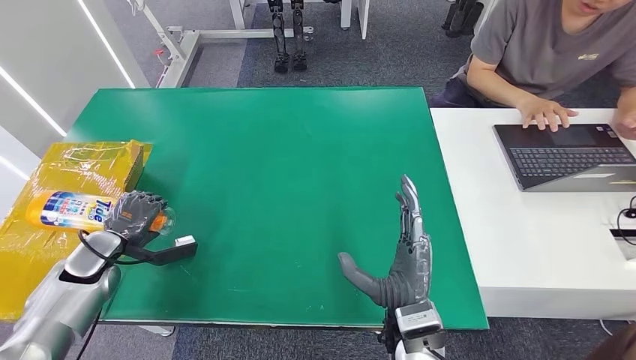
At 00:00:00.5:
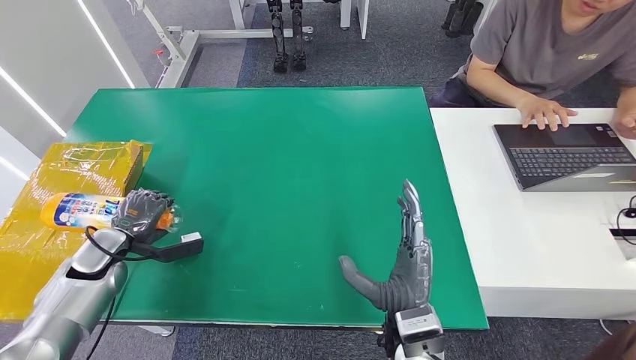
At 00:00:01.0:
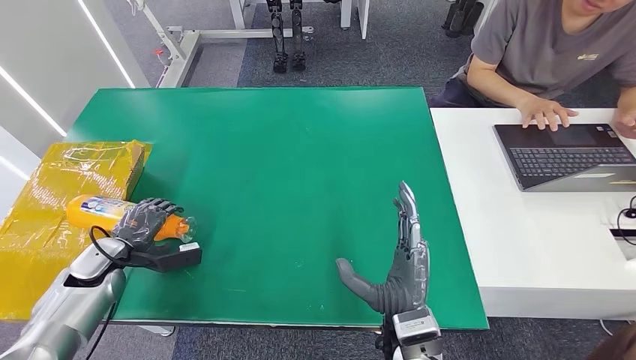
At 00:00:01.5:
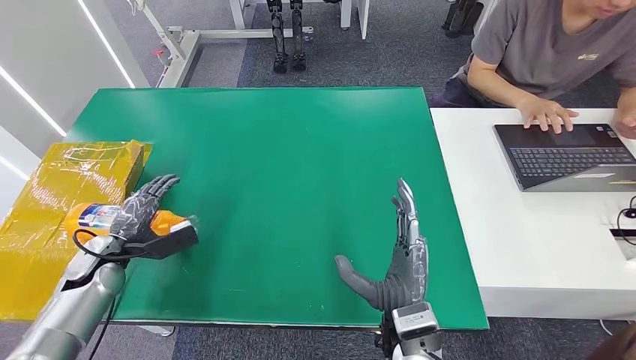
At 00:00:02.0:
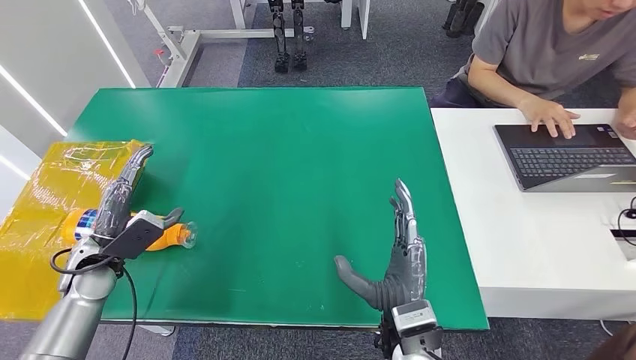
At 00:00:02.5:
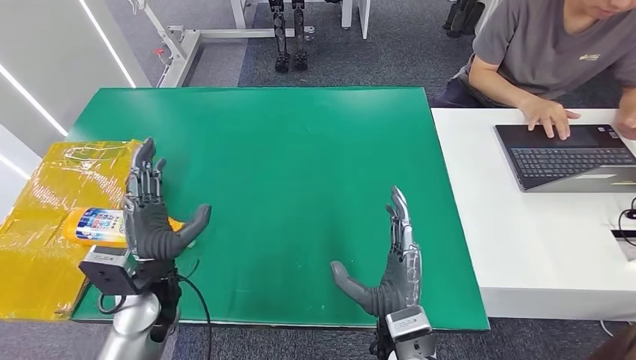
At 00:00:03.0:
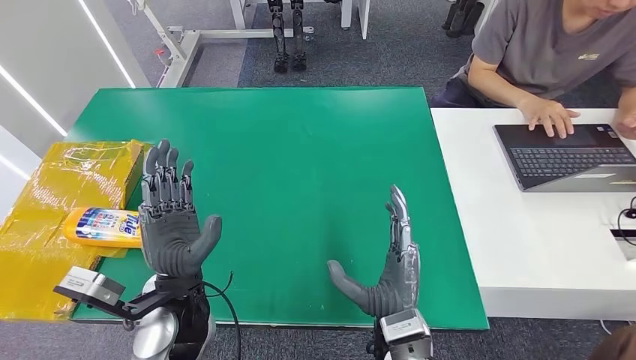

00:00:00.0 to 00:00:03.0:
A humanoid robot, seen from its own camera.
Step, 00:00:00.0 to 00:00:03.0: Turn the bottle to the front side.
00:00:01.5 to 00:00:03.0: The left hand is displaced to the right, backward and upward by approximately 25 cm.

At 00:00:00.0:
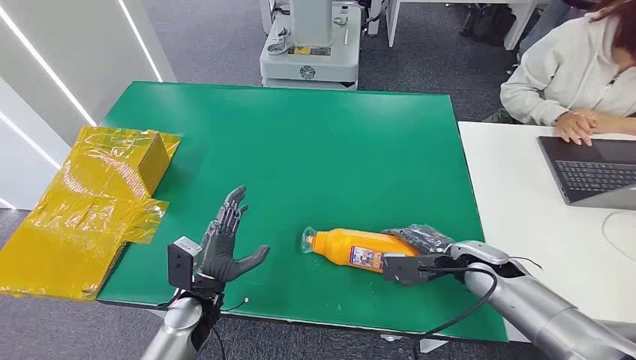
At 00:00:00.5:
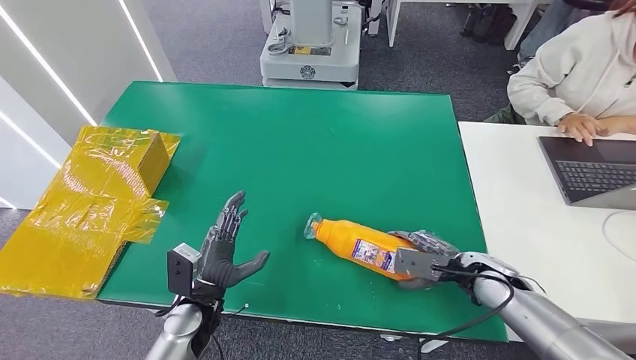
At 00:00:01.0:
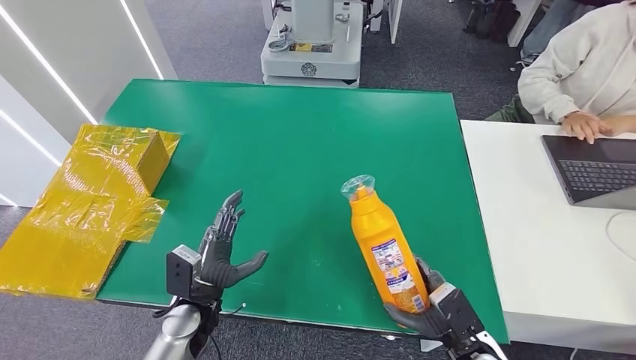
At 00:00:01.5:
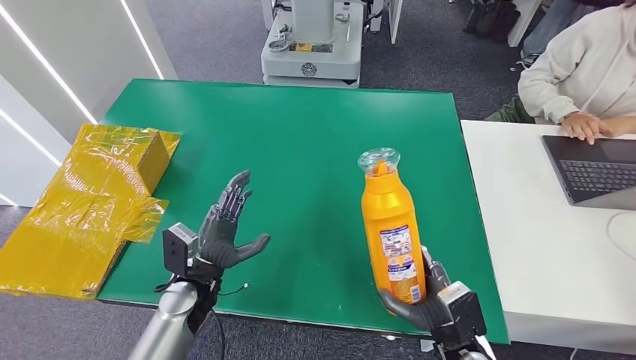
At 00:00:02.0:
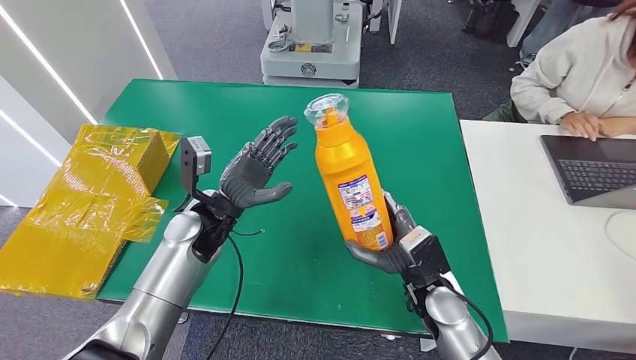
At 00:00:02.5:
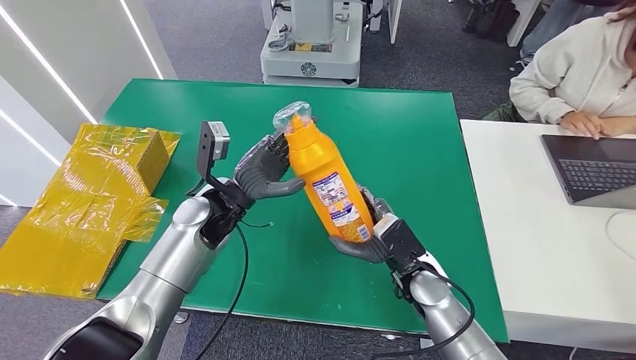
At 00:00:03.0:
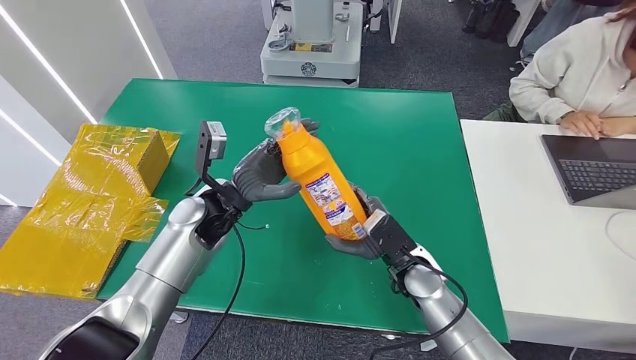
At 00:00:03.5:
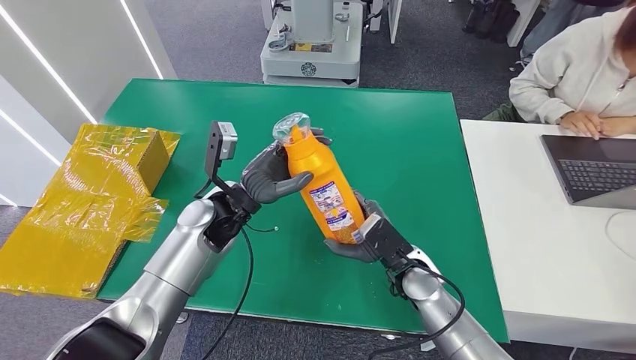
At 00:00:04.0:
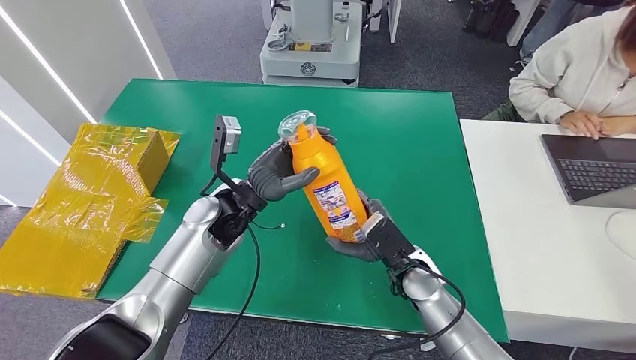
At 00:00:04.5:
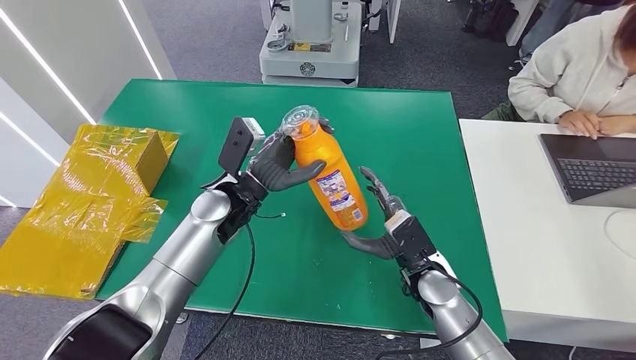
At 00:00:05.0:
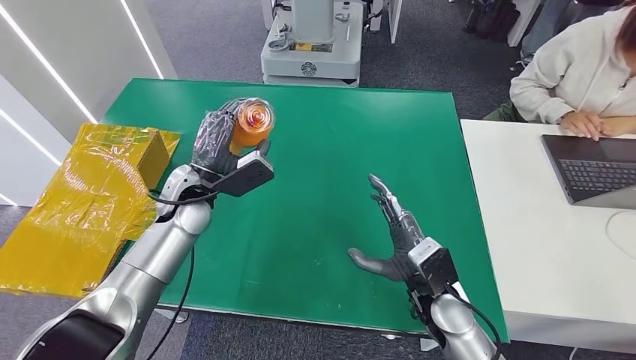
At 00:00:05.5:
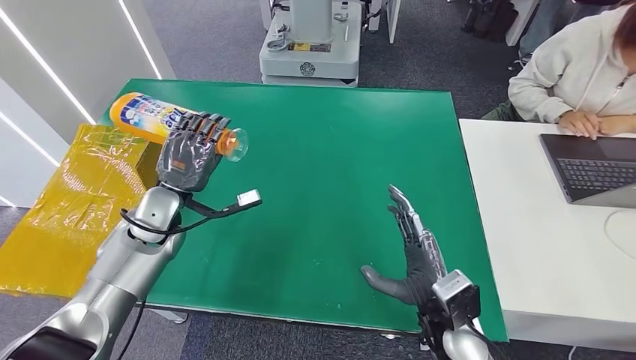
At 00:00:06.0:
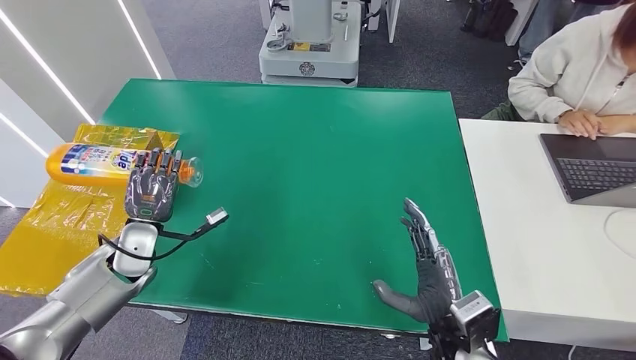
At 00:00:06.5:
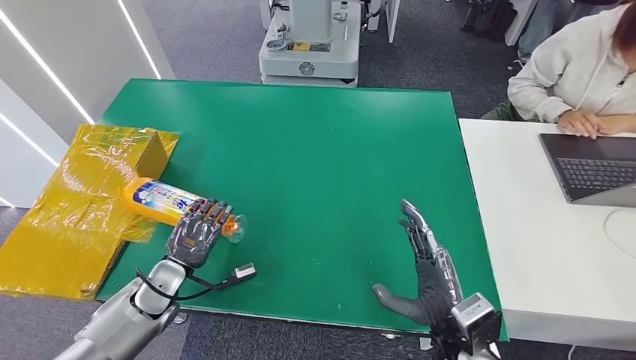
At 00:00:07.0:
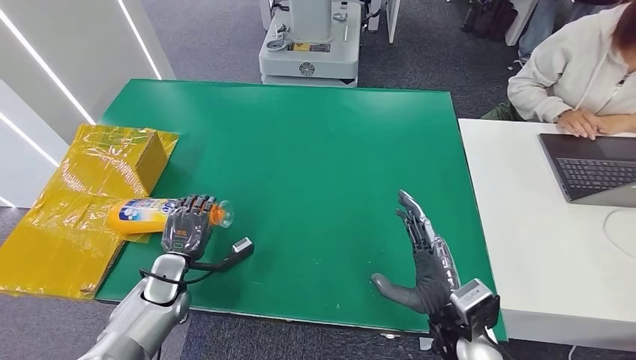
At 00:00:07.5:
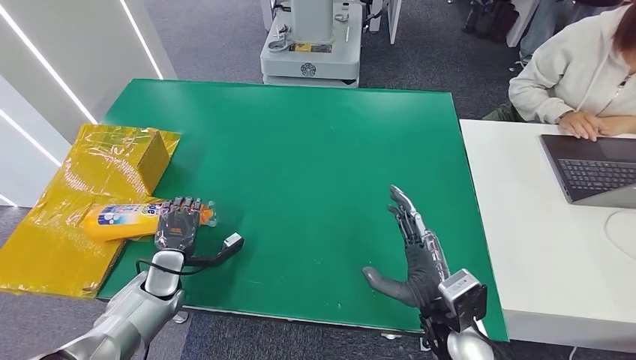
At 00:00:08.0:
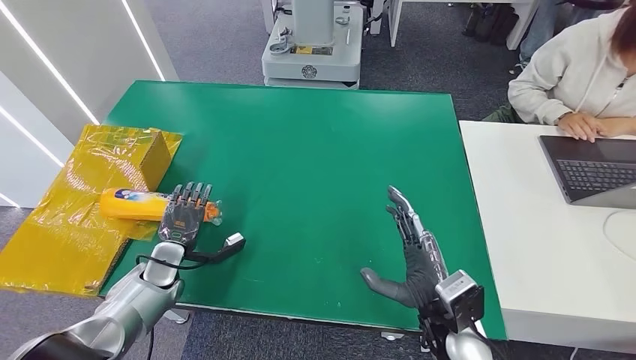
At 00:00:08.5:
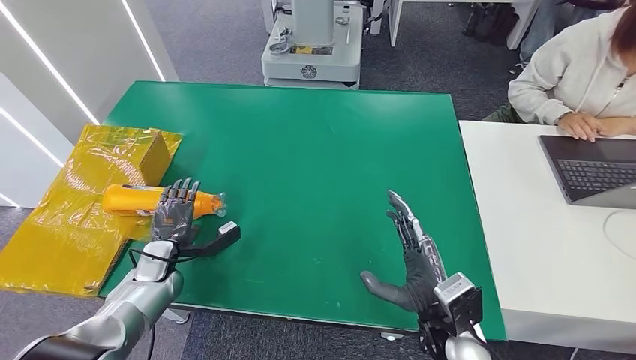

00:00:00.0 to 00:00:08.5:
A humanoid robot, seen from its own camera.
Step, 00:00:00.0 to 00:00:01.5: Pick up the bottle from the table.
Step, 00:00:02.0 to 00:00:07.5: Turn the bottle to the front side.
00:00:02.0 to 00:00:04.0: The hands make only small movements.
00:00:04.0 to 00:00:06.5: The left hand shifts roughly 25 cm downward, to the left and backward. Meanwhile the right hand heads backward and to the right, covering roughly 15 cm.
00:00:06.5 to 00:00:08.5: The left hand shifts about 5 cm forward.
